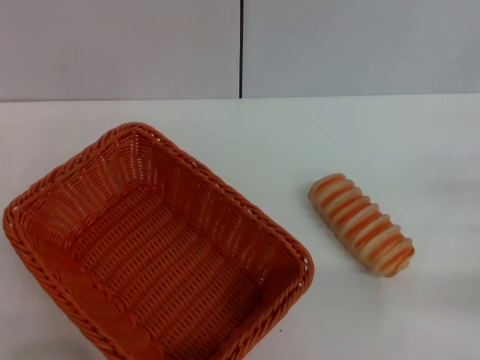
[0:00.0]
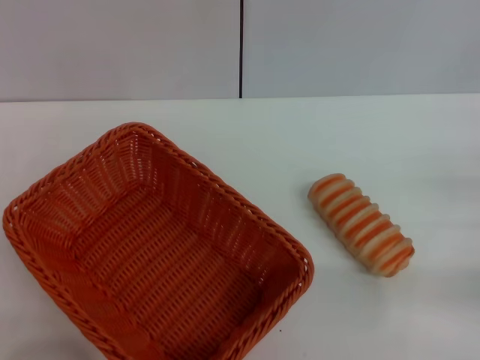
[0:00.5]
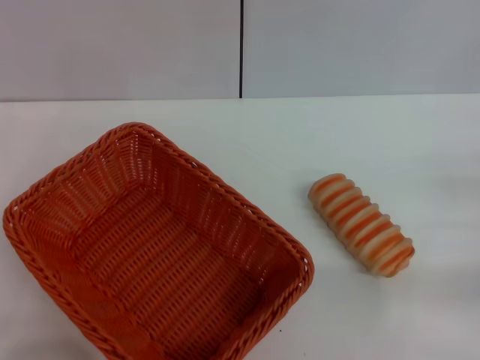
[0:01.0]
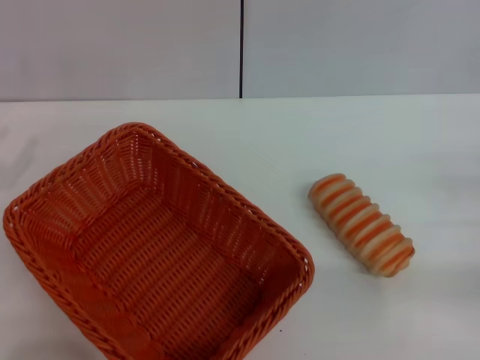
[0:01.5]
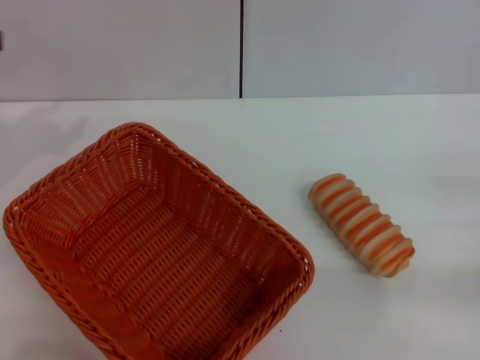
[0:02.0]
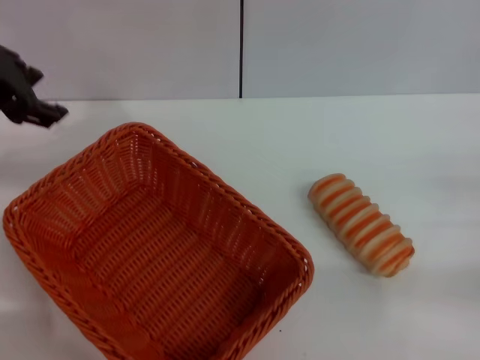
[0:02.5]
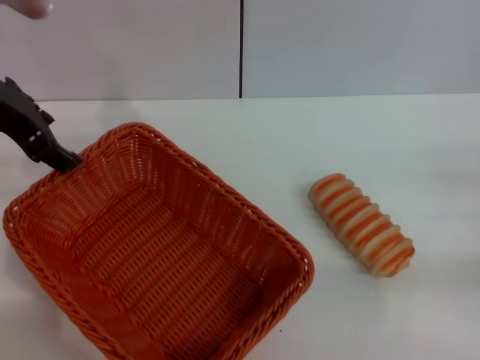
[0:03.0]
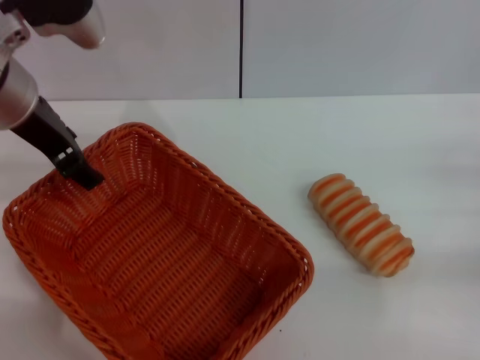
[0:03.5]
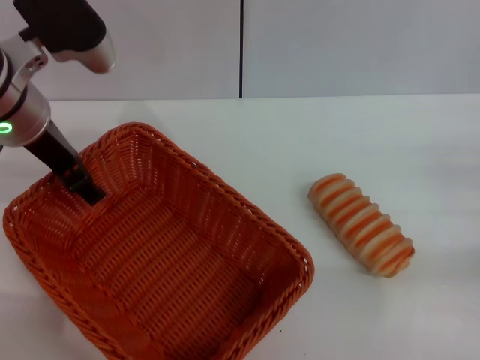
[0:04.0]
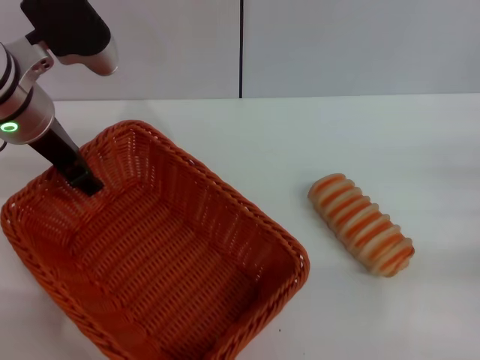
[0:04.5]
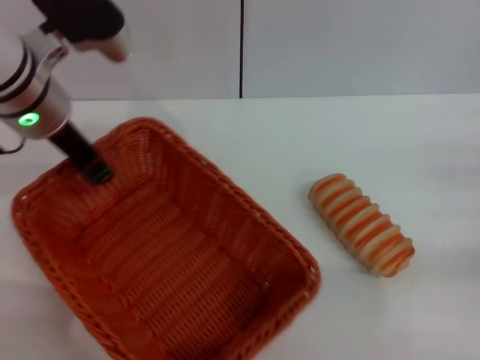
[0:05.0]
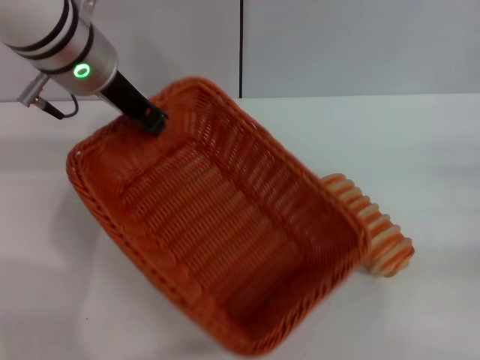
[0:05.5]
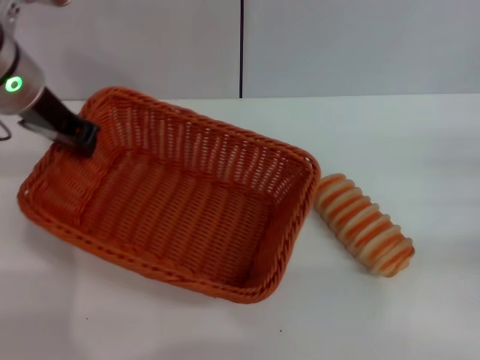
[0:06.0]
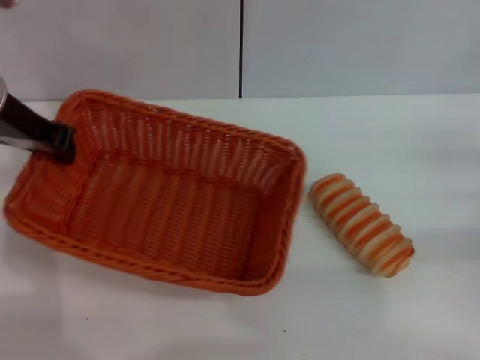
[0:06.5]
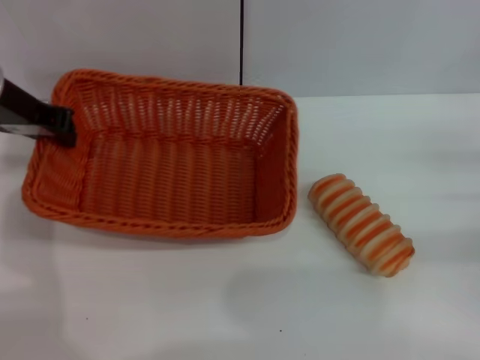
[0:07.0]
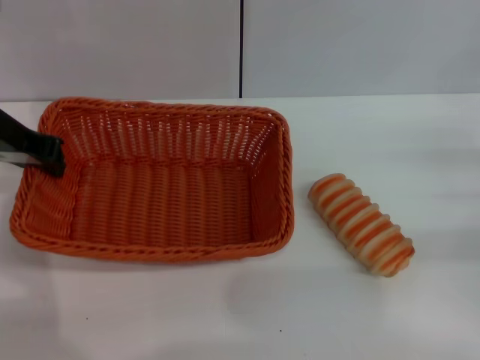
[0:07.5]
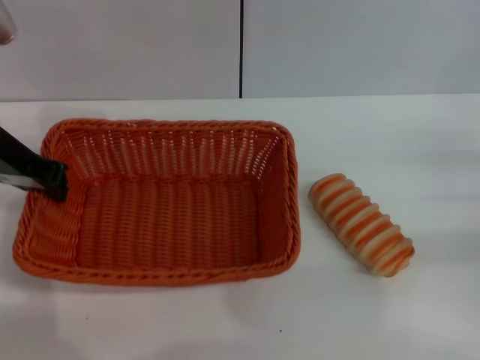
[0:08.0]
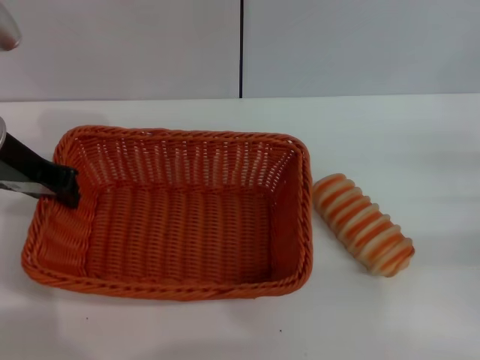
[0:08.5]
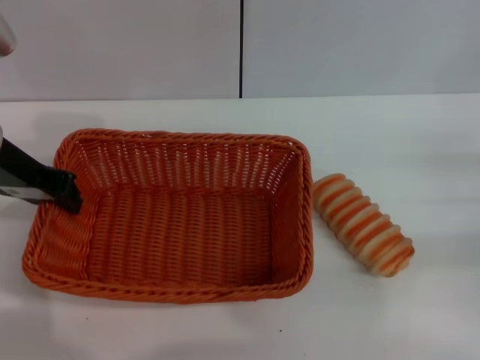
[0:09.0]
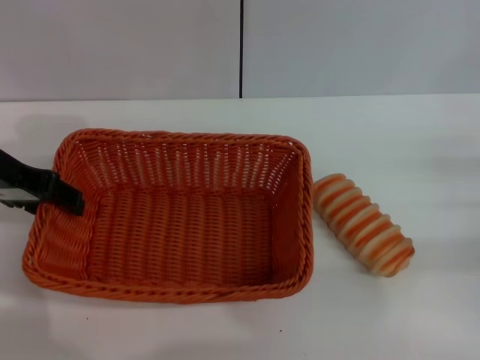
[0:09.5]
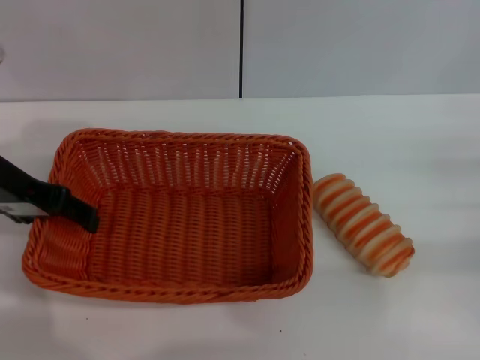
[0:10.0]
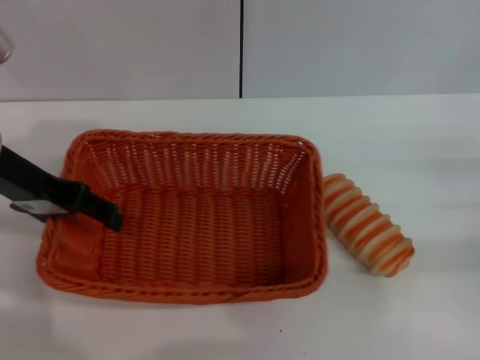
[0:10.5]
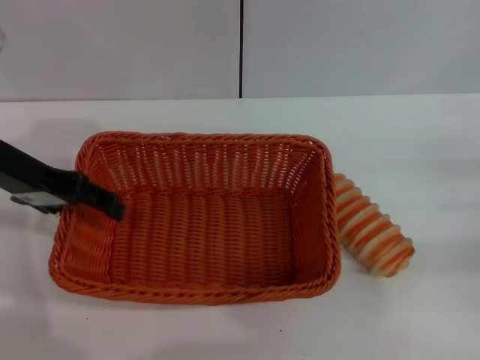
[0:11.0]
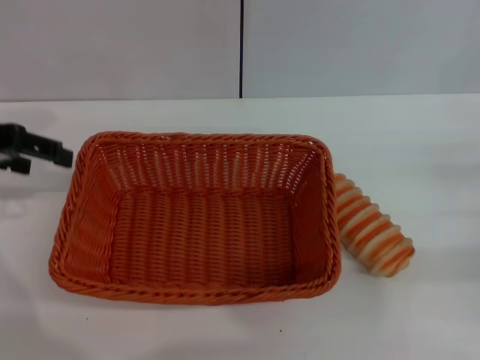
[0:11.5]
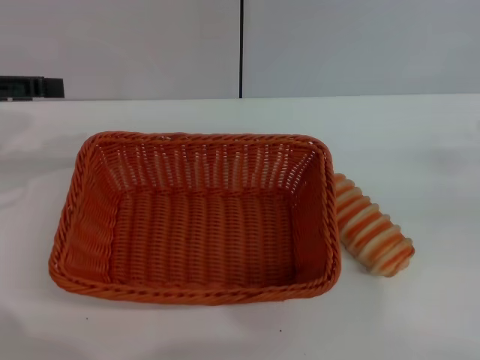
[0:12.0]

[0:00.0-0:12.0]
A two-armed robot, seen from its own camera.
Step, 0:00.0 to 0:05.5: Pick up the light basket with the left gripper.
Step, 0:06.0 to 0:11.5: Place the light basket in the center of view with the left gripper.
0:02.0 to 0:04.0: The left gripper shifts approximately 20 cm to the right and forward.
0:04.0 to 0:06.0: The left gripper closes.
0:06.0 to 0:08.0: The grippers stay close to where they were, moving slightly.
0:08.0 to 0:10.0: The left gripper opens.
0:10.0 to 0:12.0: The left gripper shifts roughly 10 cm to the left; the right gripper heads upward, covering some 10 cm.

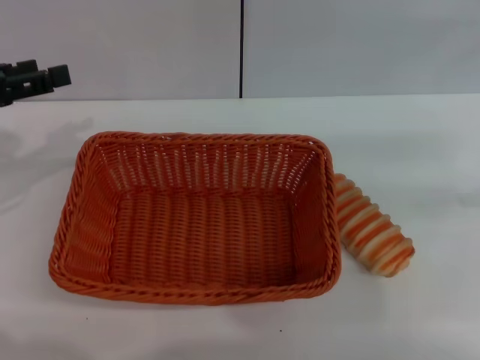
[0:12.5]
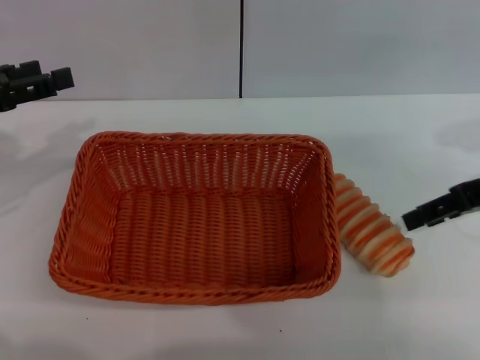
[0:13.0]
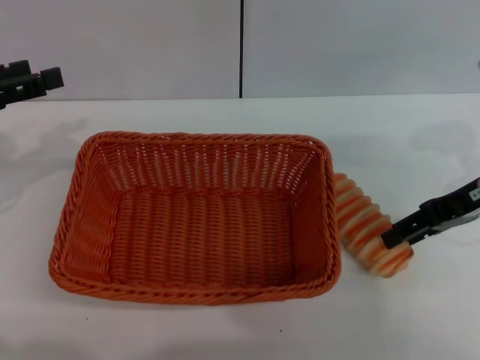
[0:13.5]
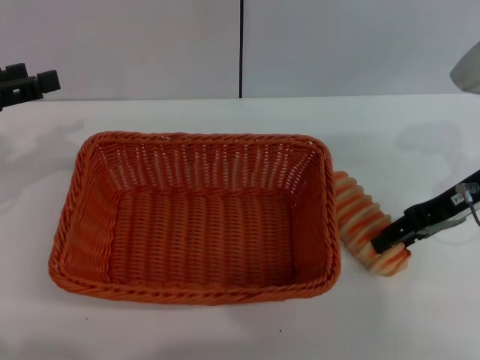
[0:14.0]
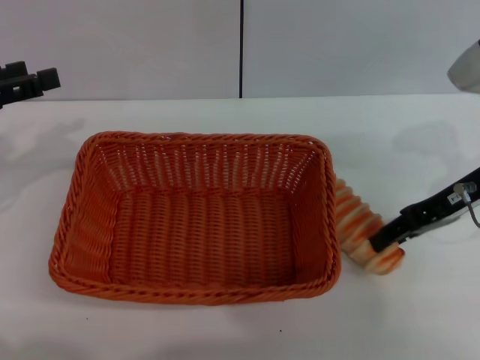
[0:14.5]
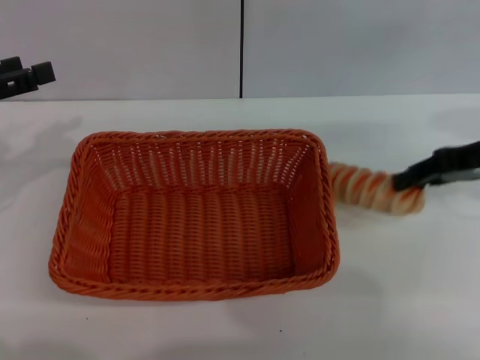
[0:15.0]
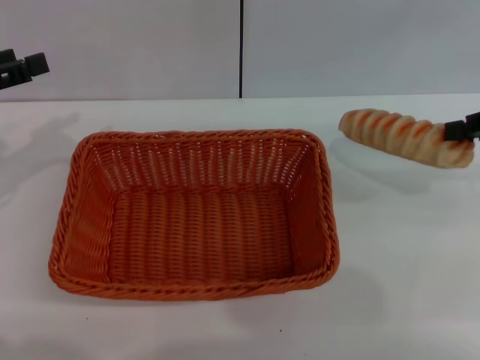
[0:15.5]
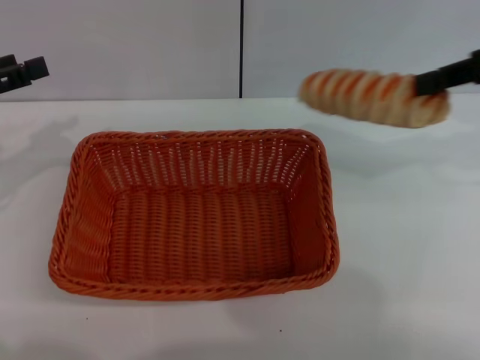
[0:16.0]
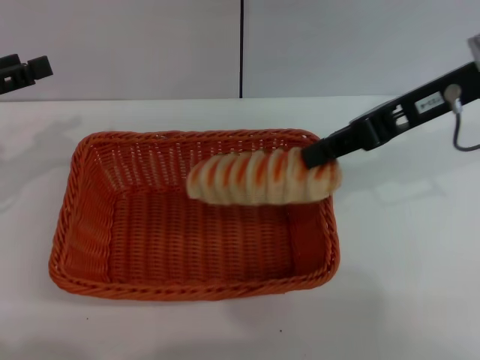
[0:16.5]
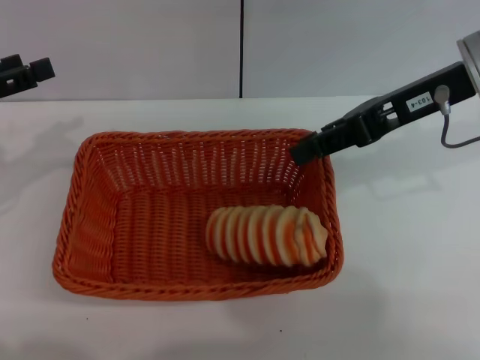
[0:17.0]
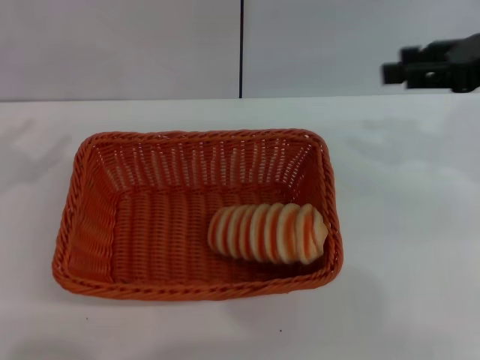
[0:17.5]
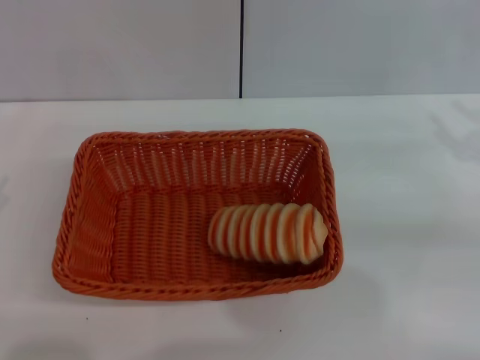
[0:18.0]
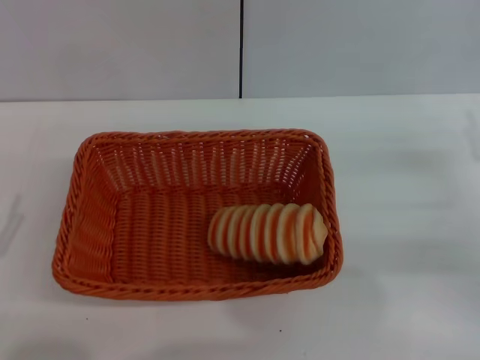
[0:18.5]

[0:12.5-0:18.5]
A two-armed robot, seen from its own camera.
Step, 0:12.5 to 0:15.5: Place the long bread into the dark basket with the right gripper.
Step, 0:16.0 to 0:17.0: Place the long bread into the light basket with the right gripper.
0:12.5 to 0:14.5: The right gripper travels to the left and downward by roughly 10 cm.
0:14.5 to 0:16.5: The right gripper travels upward and to the left by approximately 10 cm, and closes its fingers.
0:16.5 to 0:18.5: The left gripper is displaced backward and downward by about 20 cm, while the right gripper travels downward, to the right and backward by approximately 25 cm, and opens up.

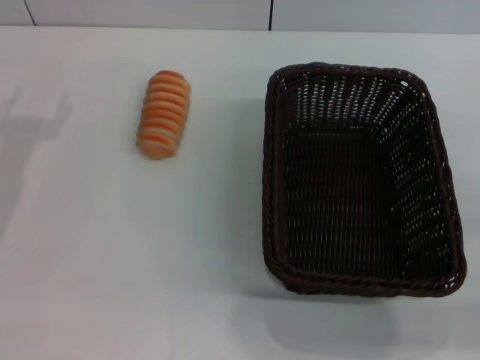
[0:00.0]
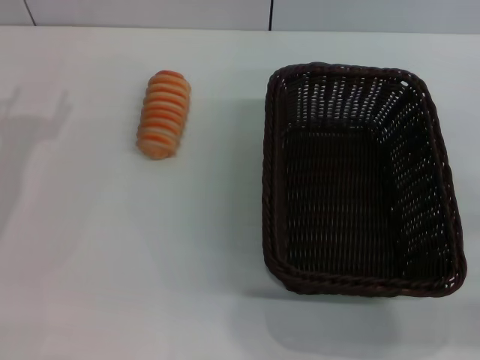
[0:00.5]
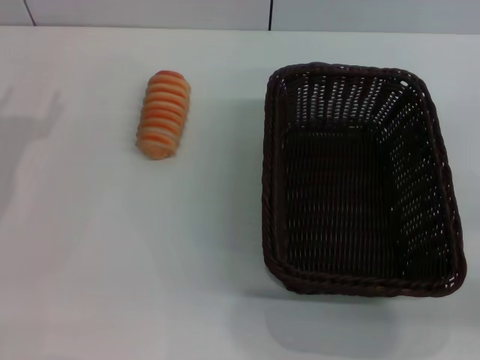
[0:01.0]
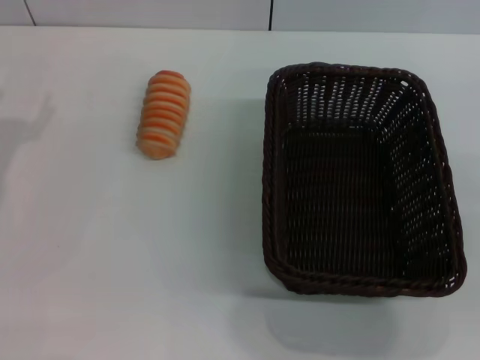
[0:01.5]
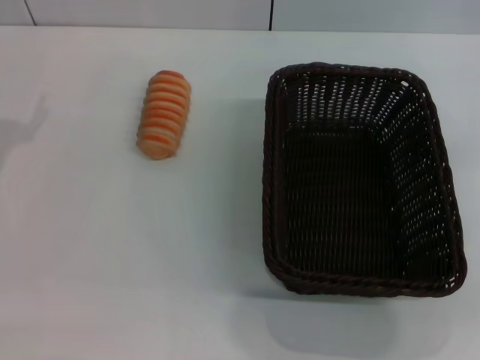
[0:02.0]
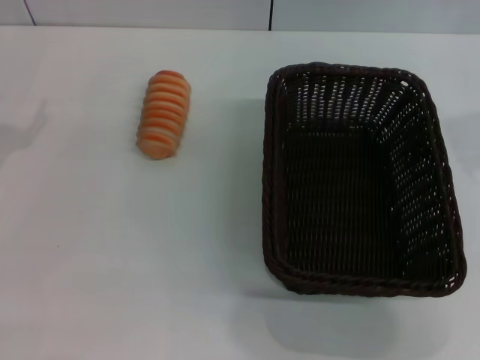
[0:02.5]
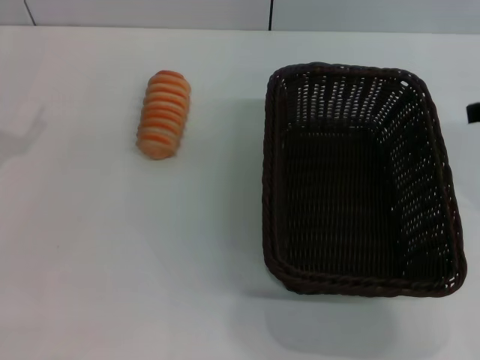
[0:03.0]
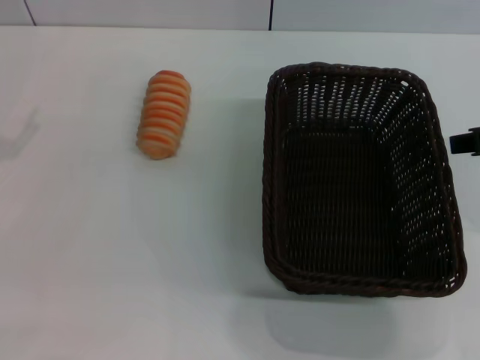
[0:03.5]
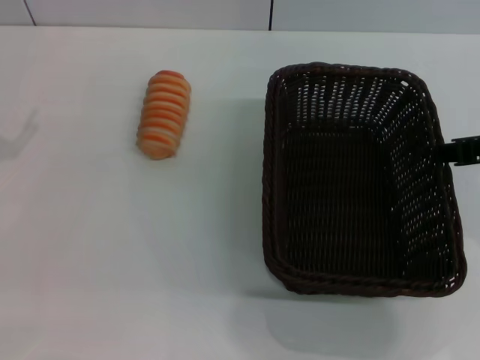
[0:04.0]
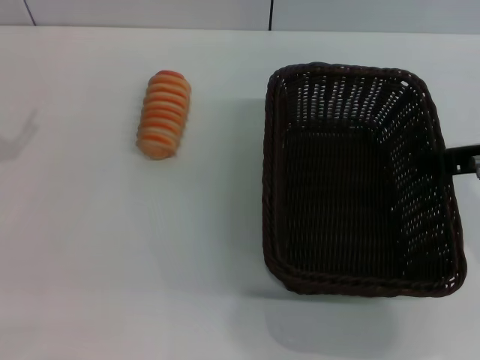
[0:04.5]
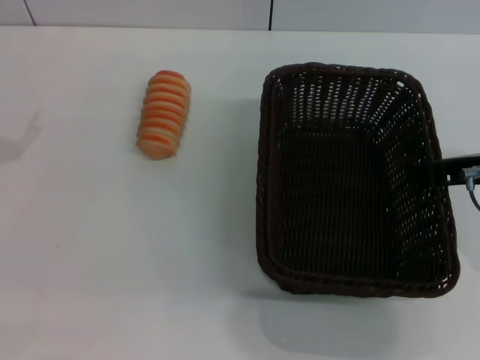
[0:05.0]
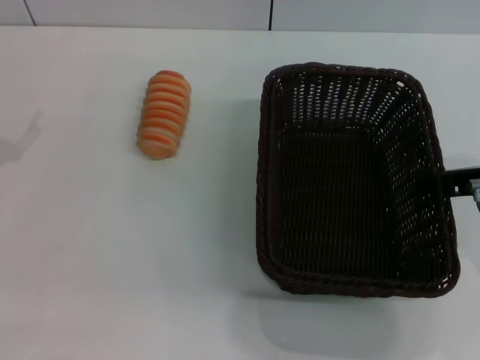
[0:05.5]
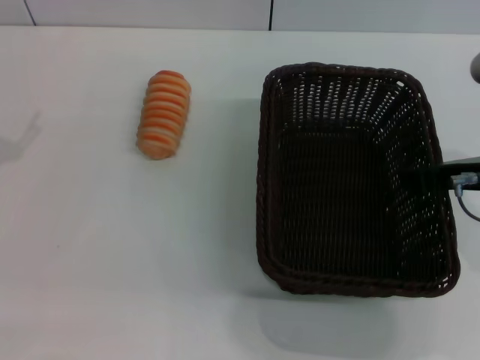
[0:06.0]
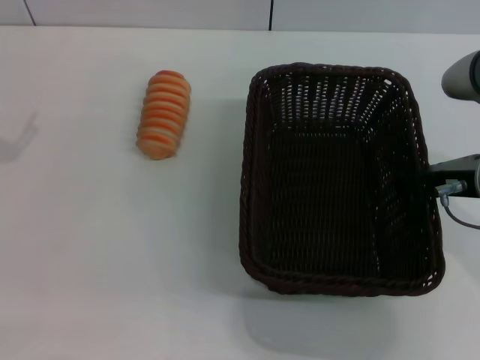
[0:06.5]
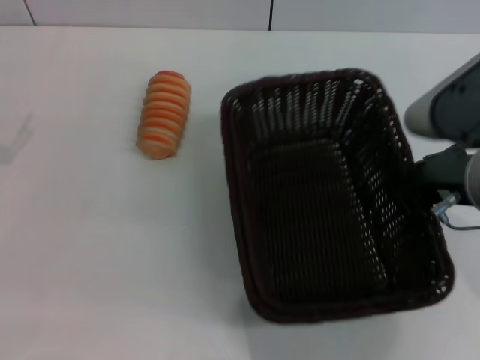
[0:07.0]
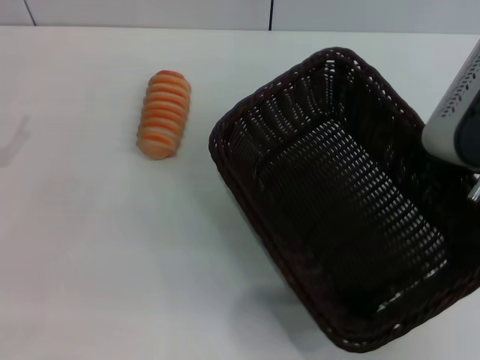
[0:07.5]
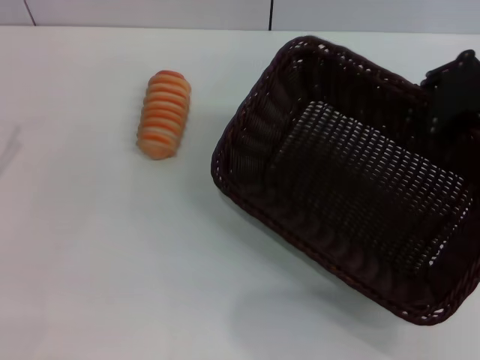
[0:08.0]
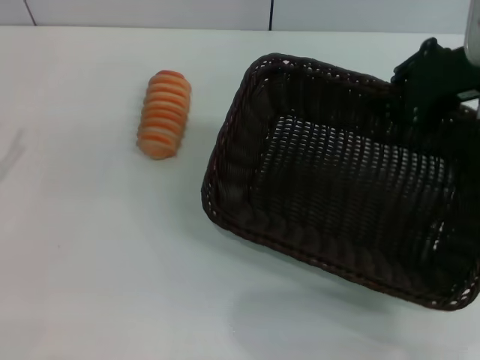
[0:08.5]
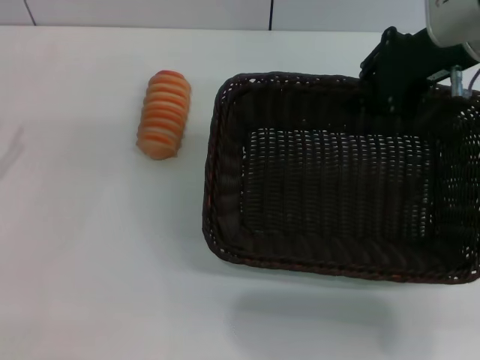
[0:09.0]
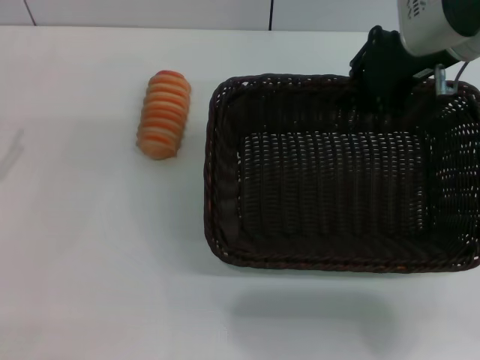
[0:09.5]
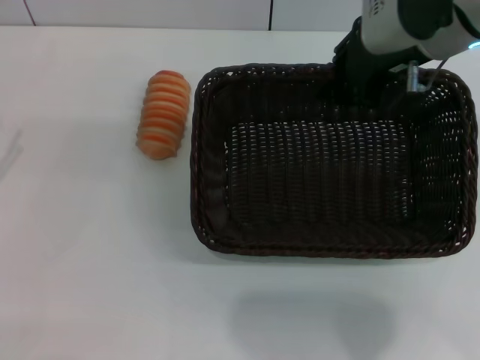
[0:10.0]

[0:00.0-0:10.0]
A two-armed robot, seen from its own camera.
Step, 0:00.0 to 0:07.5: Pick up the dark basket with the right gripper.
0:04.0 to 0:06.0: There are only small adjustments of the grippers.
0:06.0 to 0:08.0: The right gripper moves about 5 cm, and closes.
0:08.0 to 0:10.0: The right gripper is displaced to the left and forward by approximately 10 cm.
